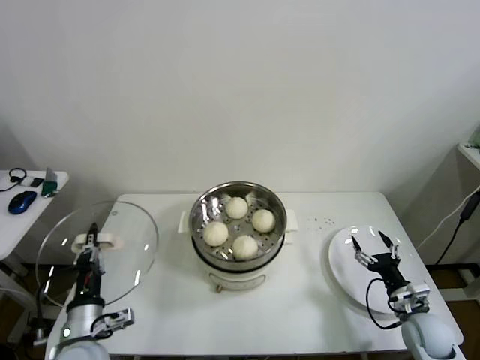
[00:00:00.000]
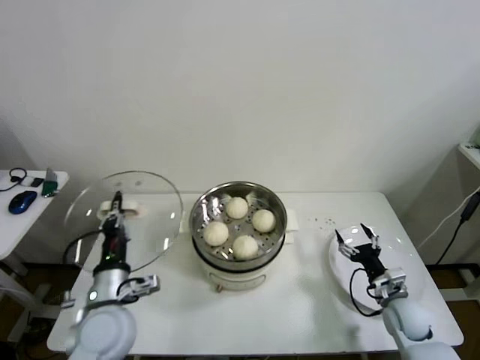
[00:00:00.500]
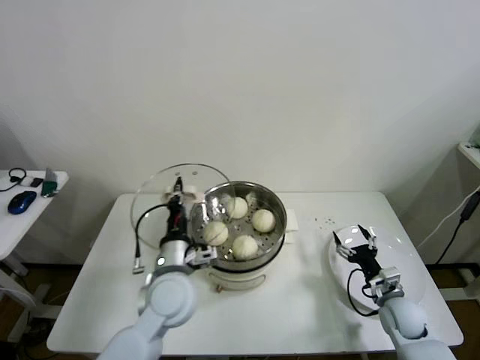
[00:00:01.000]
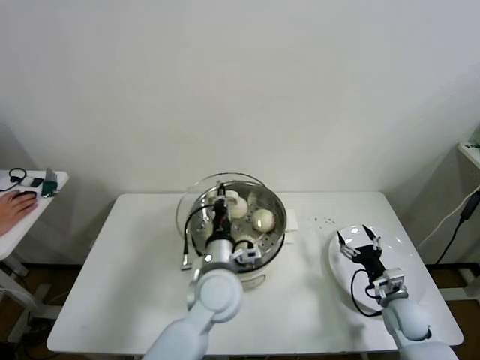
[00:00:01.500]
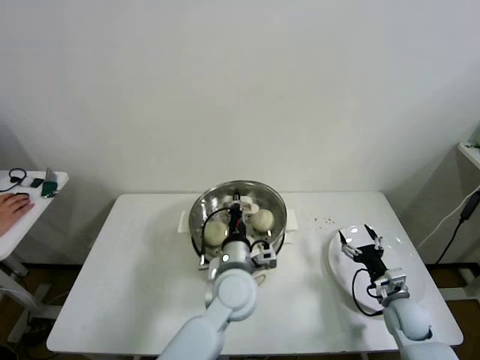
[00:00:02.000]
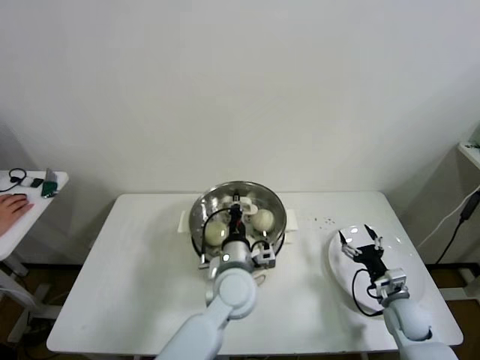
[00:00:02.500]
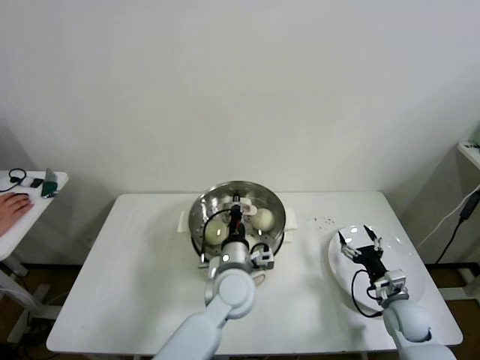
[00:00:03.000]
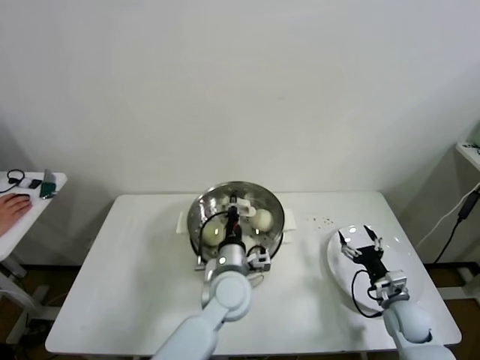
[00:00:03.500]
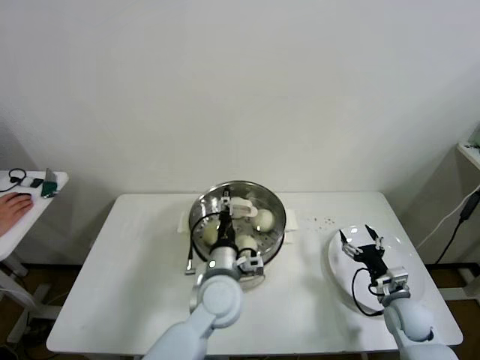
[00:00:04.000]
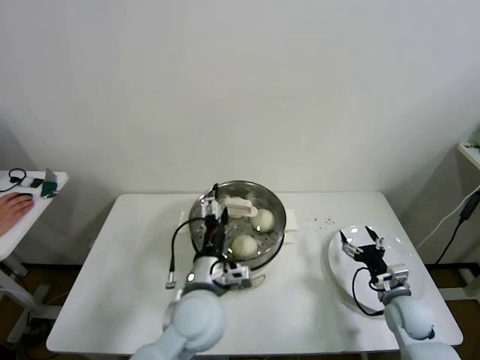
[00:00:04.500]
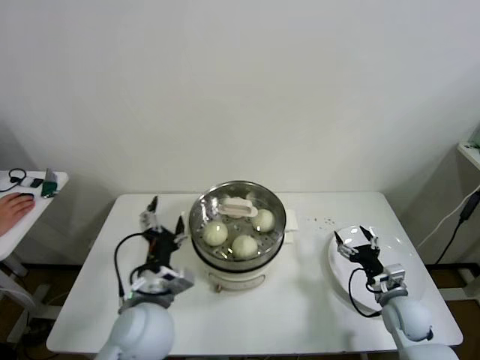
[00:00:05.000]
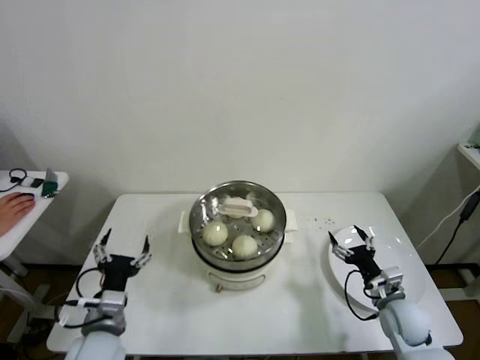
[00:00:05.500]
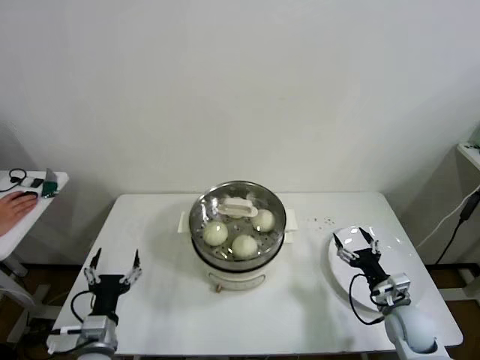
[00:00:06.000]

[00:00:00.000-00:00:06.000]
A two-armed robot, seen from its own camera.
Step, 00:00:00.000 to 00:00:03.500: Place the pot lid on the steamer with left gripper.
00:00:00.000 to 00:00:02.000: The right gripper ends up approximately 5 cm from where it was. The left gripper is displaced to the right and forward by some 30 cm.
00:00:02.000 to 00:00:04.000: The left gripper opens.
00:00:04.000 to 00:00:06.000: The left gripper shifts some 30 cm to the left and backward, and opens up.
